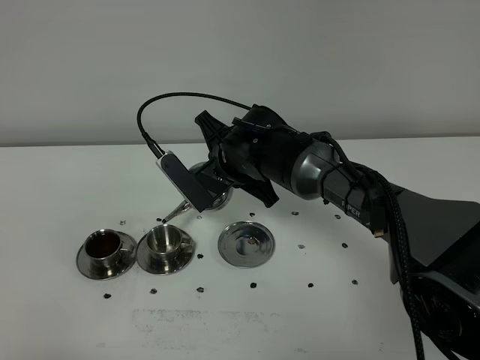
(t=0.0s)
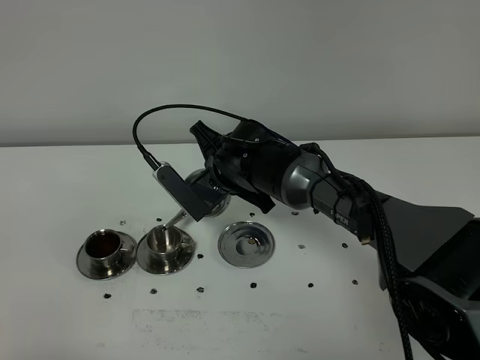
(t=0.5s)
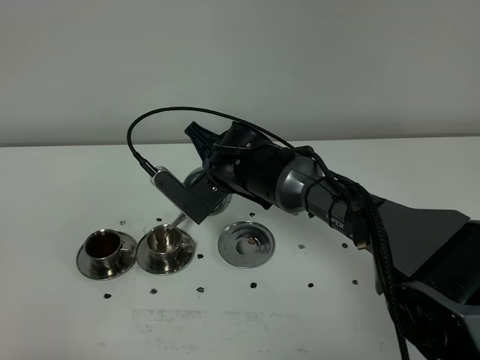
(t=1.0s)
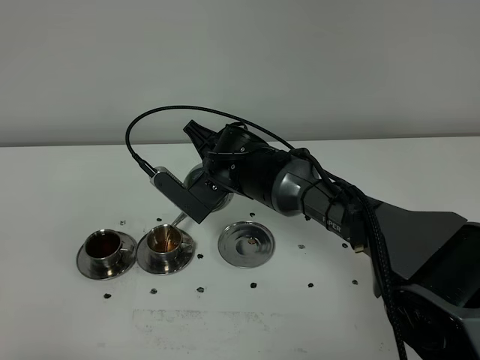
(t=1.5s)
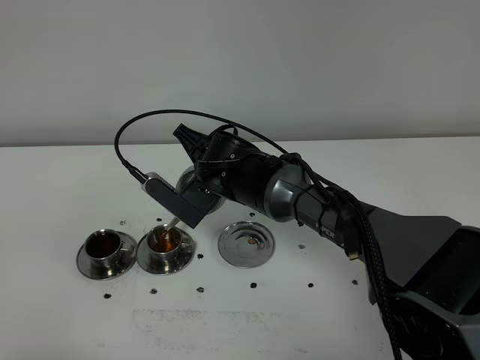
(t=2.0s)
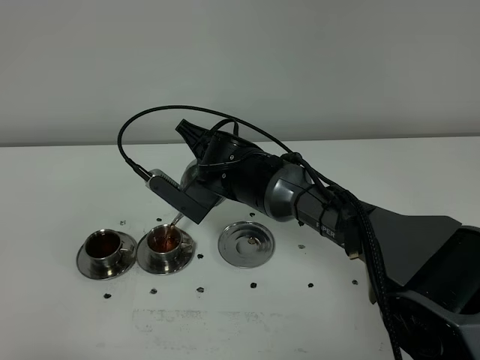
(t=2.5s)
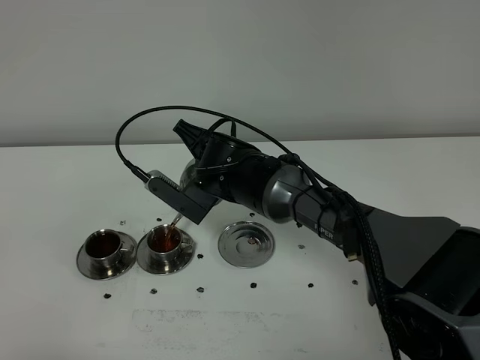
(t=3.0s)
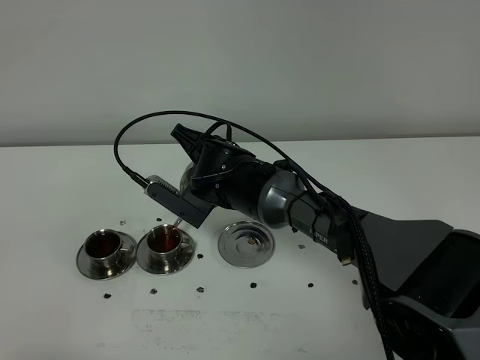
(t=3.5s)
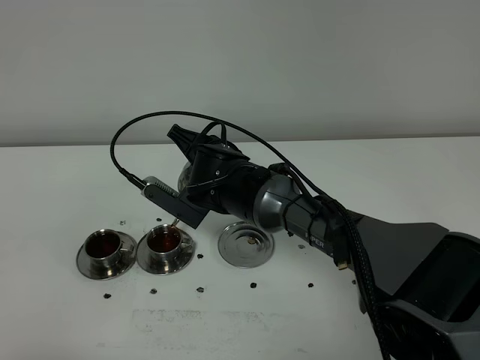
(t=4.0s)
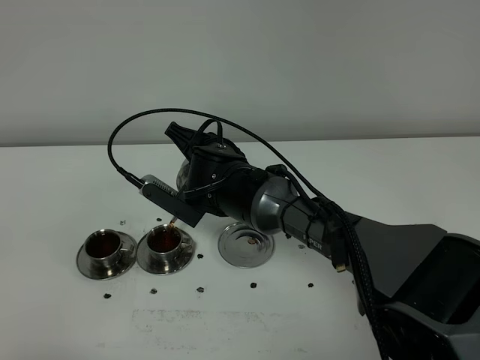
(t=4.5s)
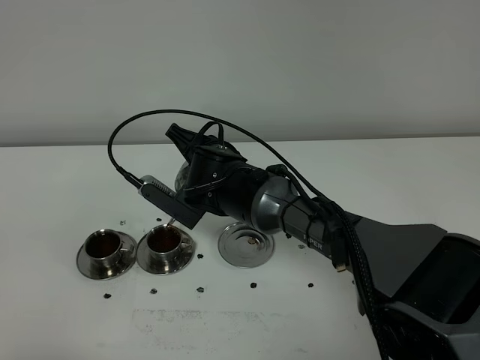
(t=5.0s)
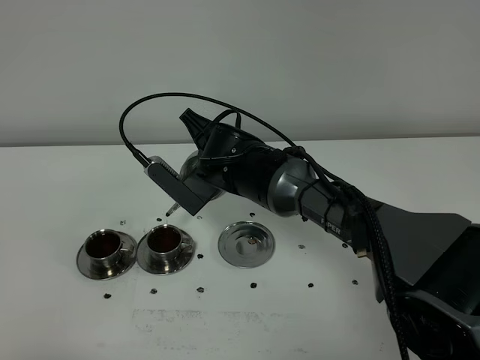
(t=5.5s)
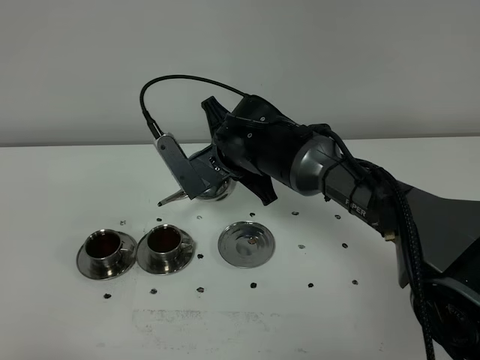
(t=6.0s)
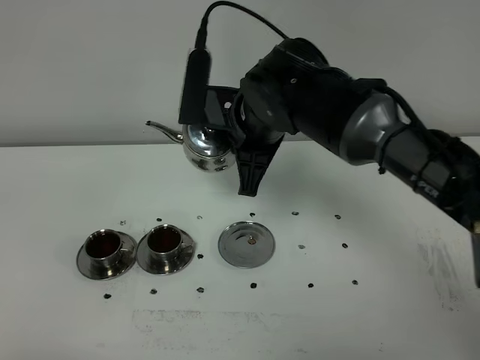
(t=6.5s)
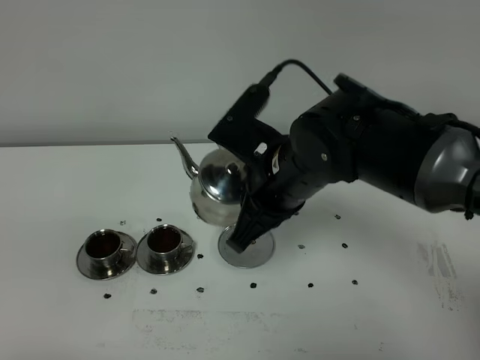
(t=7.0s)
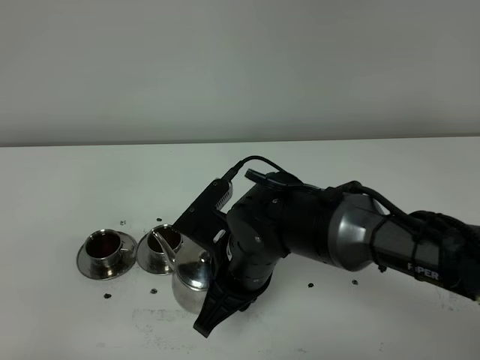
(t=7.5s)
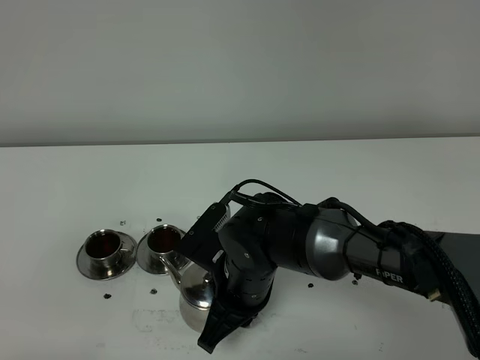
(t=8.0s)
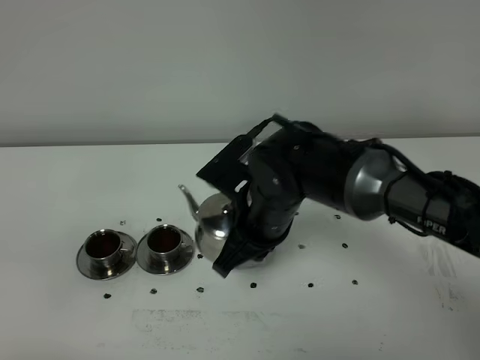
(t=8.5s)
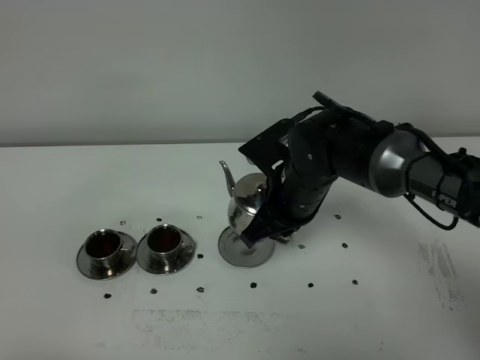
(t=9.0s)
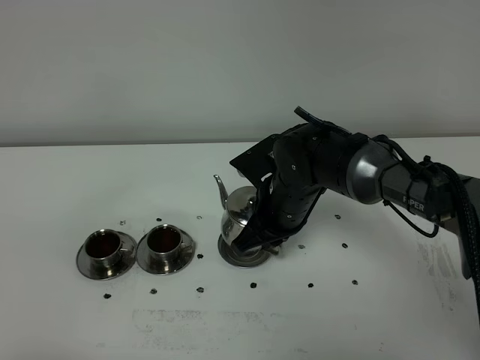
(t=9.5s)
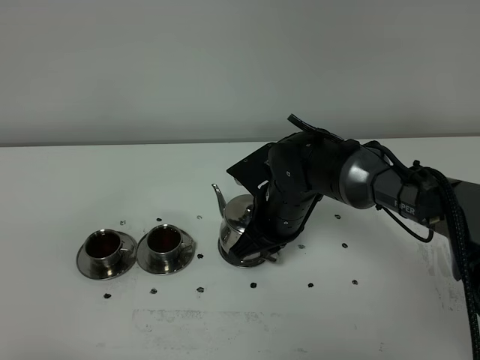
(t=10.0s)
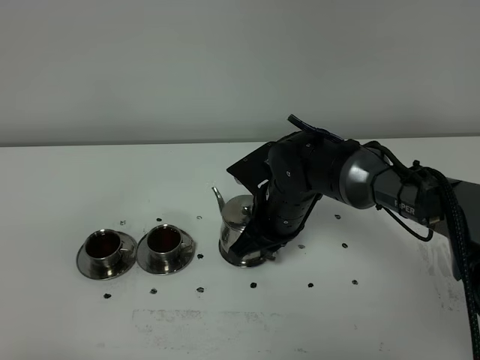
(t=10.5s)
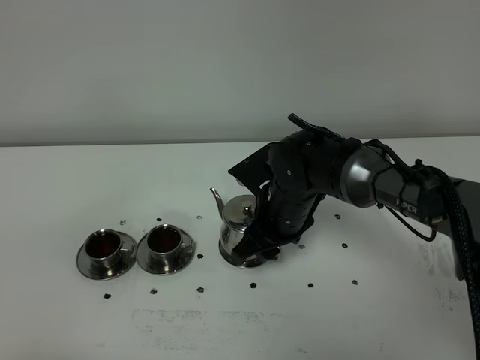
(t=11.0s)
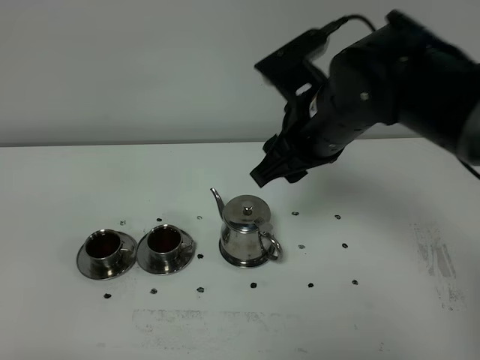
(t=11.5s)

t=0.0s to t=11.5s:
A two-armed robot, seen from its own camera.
Task of the whole recording: grasp the stainless steel teapot and pour the tea into the two stainless steel teacups one by one, put the stainless steel teapot back in its original place.
t=0.0s to t=2.0s: There are only small adjustments of the grippers.
t=2.0s to t=4.0s: The grippers stay close to where they were, moving slightly.
t=6.0s to t=7.5s: The right gripper is displaced backward by some 15 cm.
t=7.5s to t=9.5s: The right gripper goes some 10 cm forward and to the right.
t=9.5s to t=11.5s: The right gripper heads upward, covering roughly 15 cm, and opens its fingers.

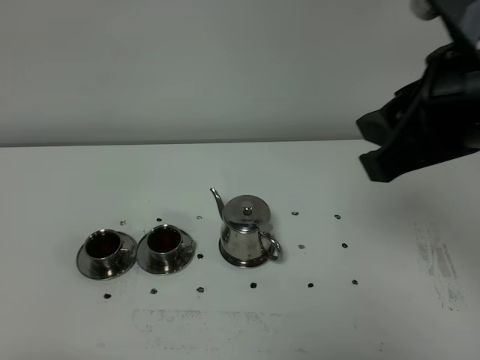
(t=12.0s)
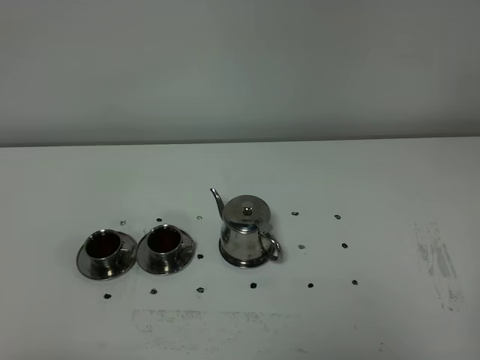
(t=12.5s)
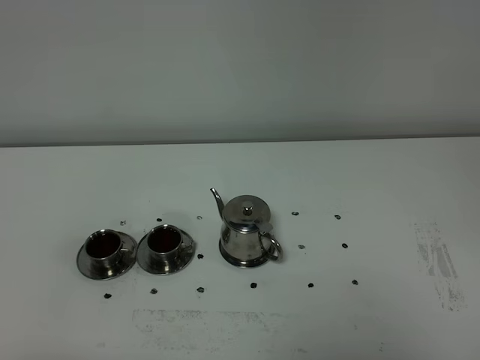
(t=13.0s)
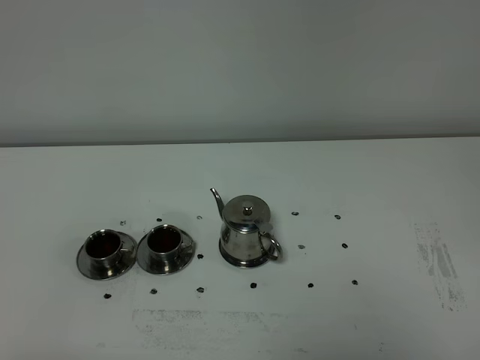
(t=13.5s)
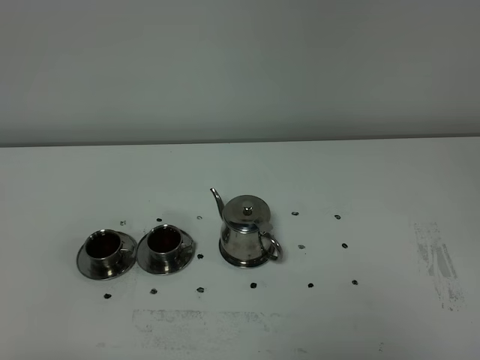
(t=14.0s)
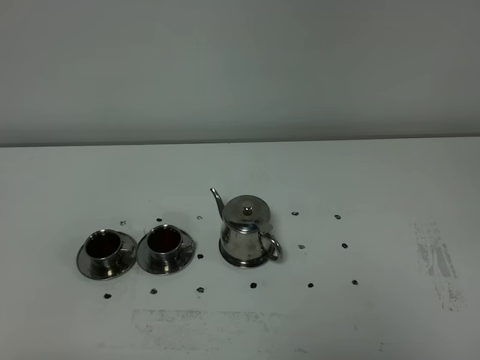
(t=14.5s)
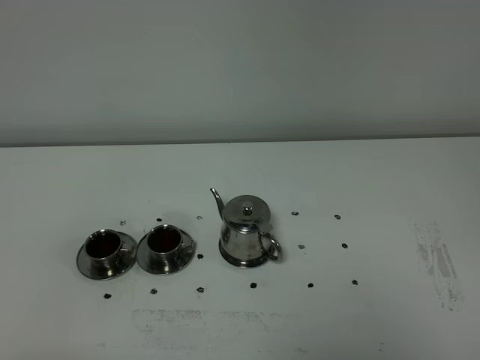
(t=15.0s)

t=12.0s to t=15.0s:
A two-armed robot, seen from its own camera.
Task of the whole recording: grasp the stainless steel teapot and pour the tea into the two stainless steel teacups one by one, put the stainless steel teapot back in its original place.
t=12.0s to t=13.5s: The right gripper is displaced backward, downward and to the right by some 30 cm, and closes up.
t=13.5s to t=15.0s: The two grippers keep their place.

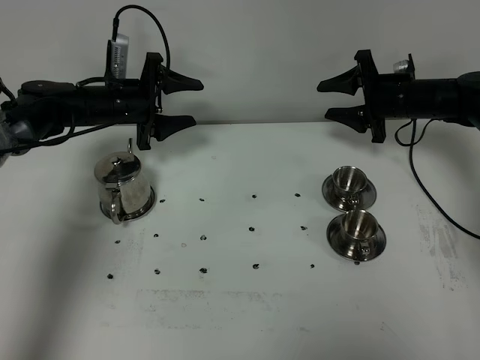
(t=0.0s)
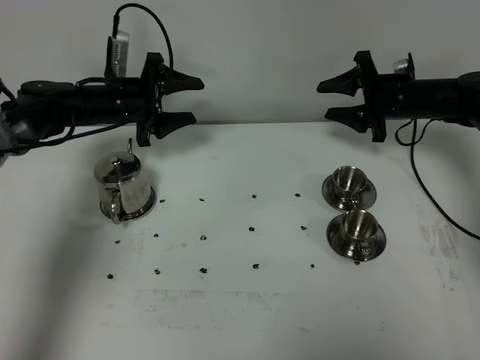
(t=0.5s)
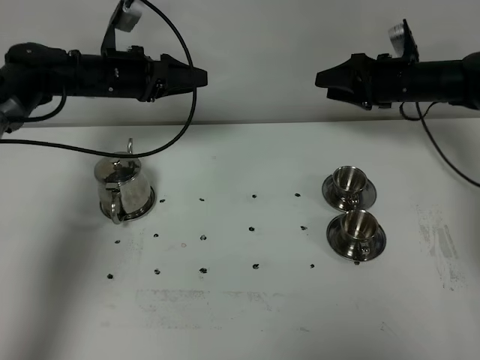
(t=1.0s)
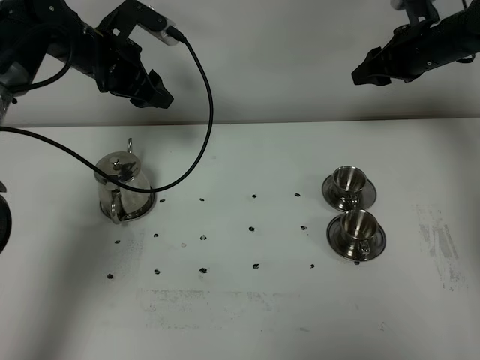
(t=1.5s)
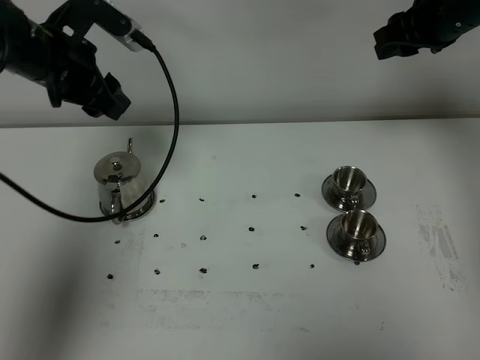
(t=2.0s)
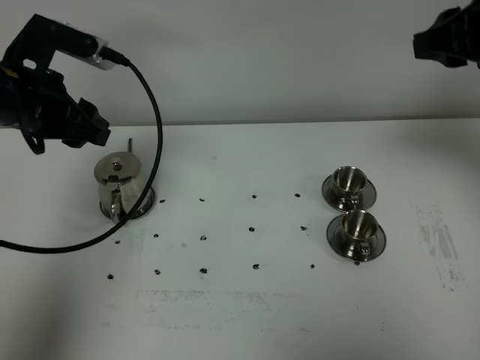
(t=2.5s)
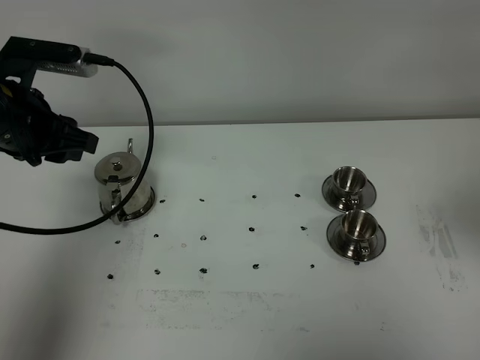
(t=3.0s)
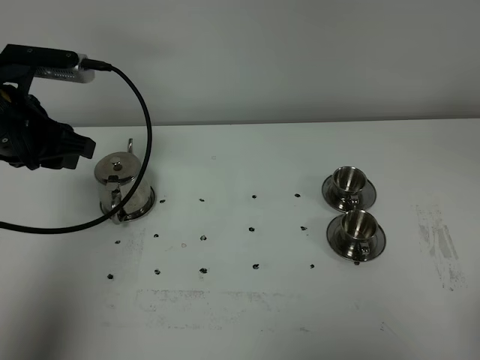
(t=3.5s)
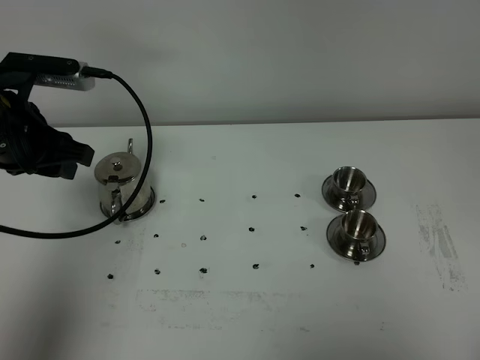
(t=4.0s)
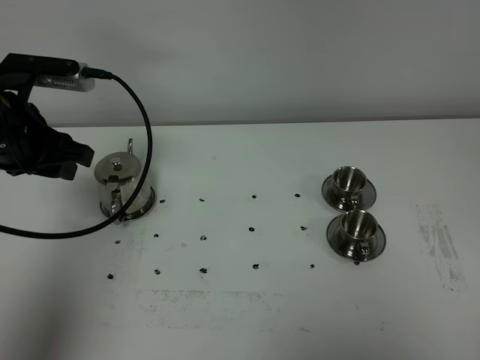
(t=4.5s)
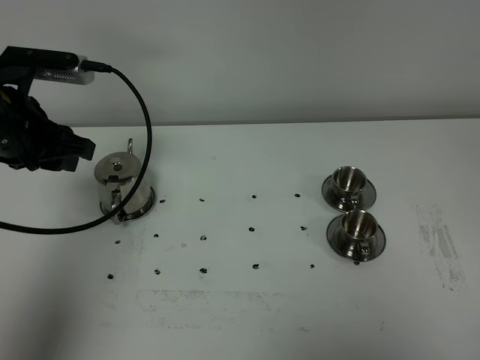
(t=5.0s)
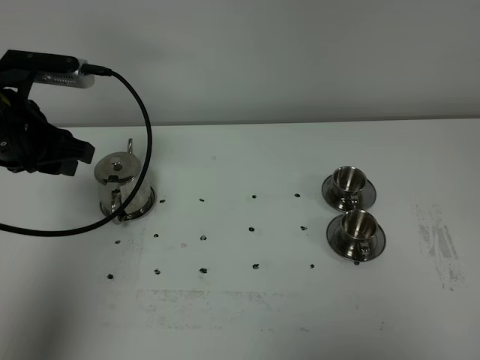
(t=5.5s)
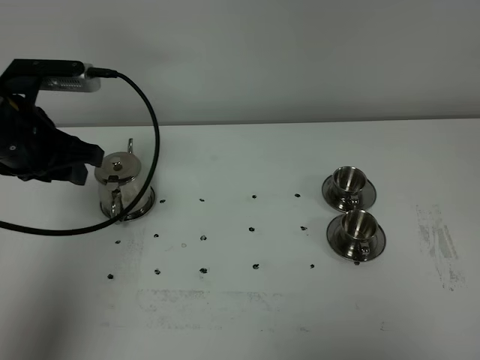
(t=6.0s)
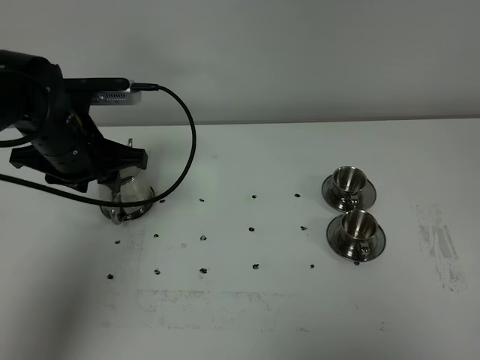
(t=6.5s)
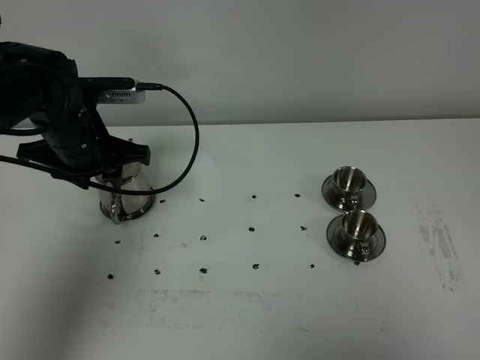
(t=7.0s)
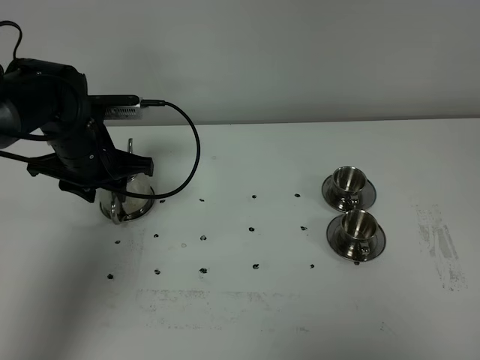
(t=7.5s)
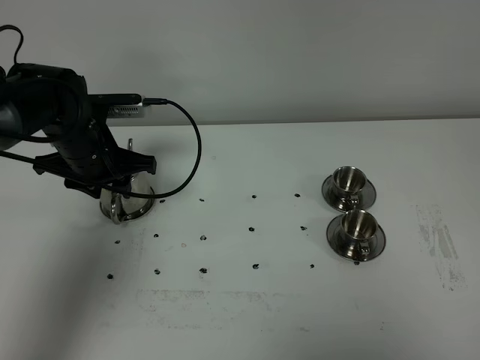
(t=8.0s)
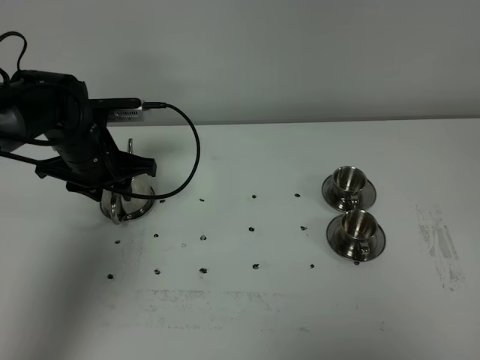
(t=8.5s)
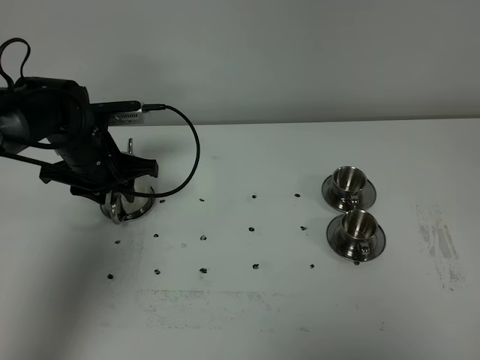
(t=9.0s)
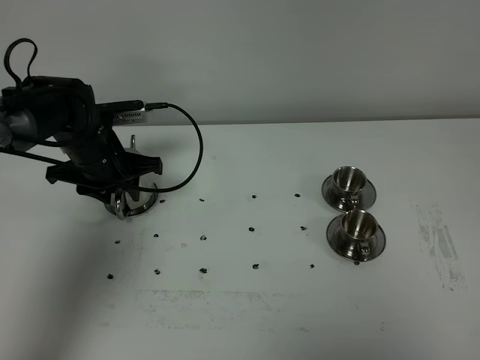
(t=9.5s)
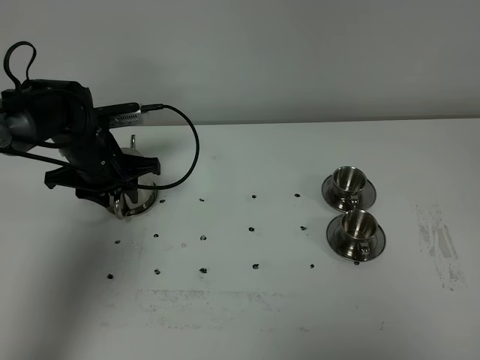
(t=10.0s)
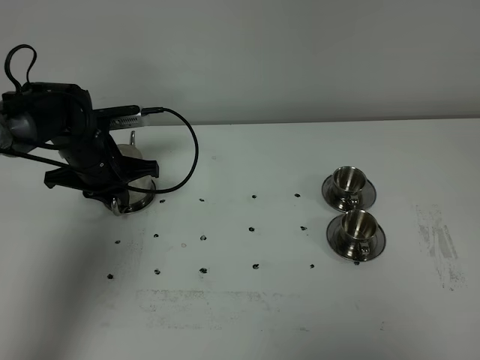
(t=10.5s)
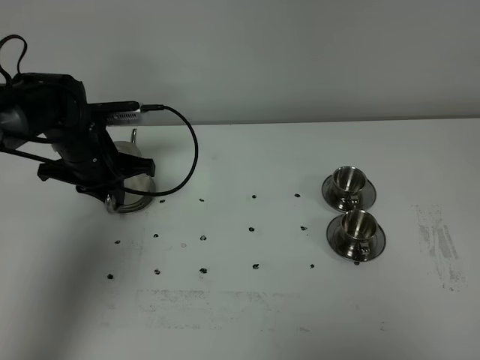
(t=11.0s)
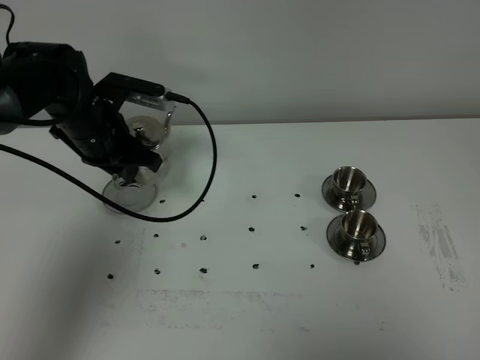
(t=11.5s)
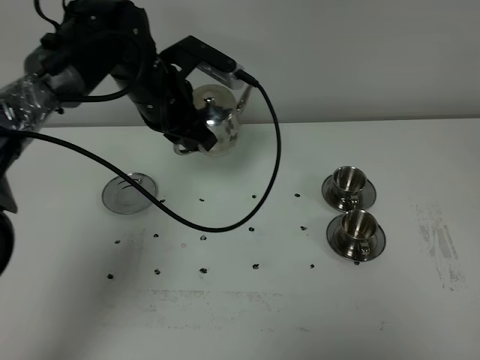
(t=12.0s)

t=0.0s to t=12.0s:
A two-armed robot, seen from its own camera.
Task of the whole recording: grasp the stainless steel teapot and pour the tea into the two stainless steel teacups one by one, put the stainless steel teapot back in its original place.
Step, t=0.0s to t=11.0s: Pick up the teapot with the left gripper.
t=0.0s to t=2.0s: The left gripper moves upward and backward, roughly 20 cm, while the right gripper heads upward, covering about 20 cm.
t=2.0s to t=4.0s: The right gripper moves backward, approximately 50 cm, and closes. Meanwhile the left gripper travels backward by about 10 cm.
t=4.0s to t=6.0s: The grippers move only a little.
t=6.0s to t=8.0s: The left gripper shifts roughly 10 cm downward and forward.
t=8.0s to t=10.0s: The grippers stay close to where they were, moving slightly.
t=10.0s to t=12.0s: The left gripper is displaced to the right and upward by roughly 15 cm, and closes up.
